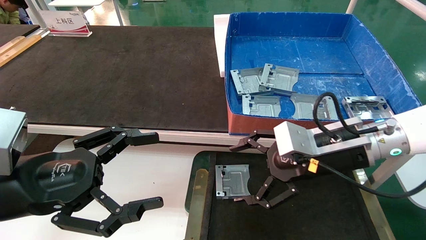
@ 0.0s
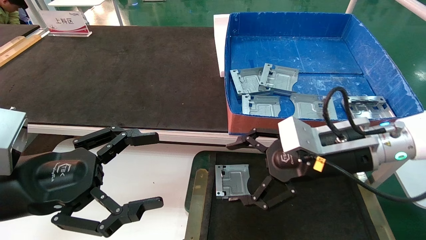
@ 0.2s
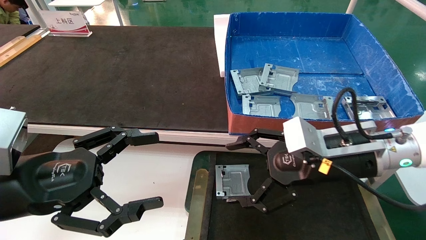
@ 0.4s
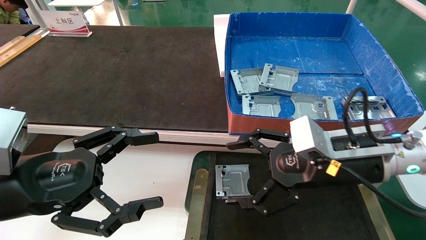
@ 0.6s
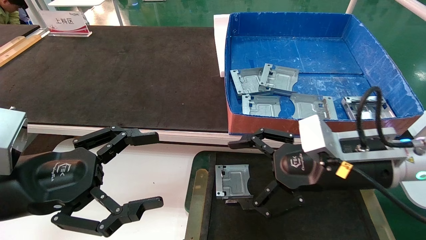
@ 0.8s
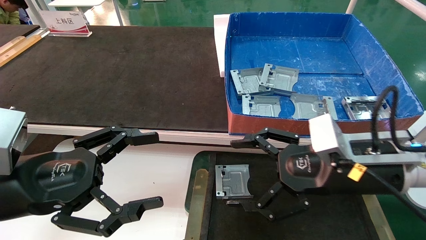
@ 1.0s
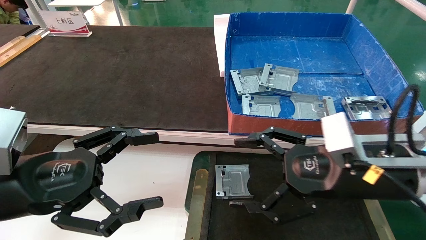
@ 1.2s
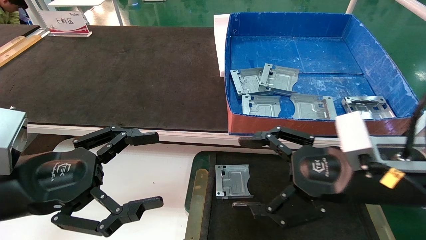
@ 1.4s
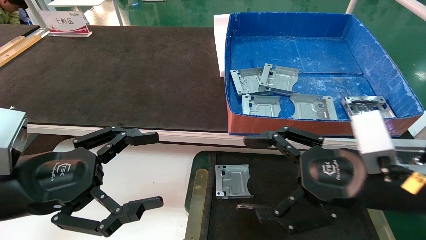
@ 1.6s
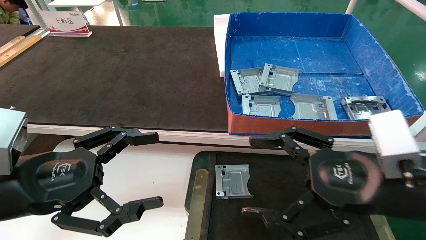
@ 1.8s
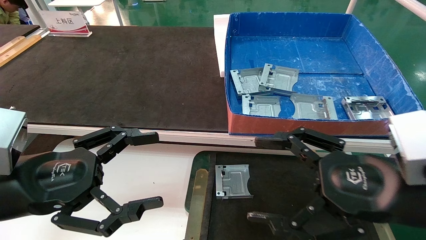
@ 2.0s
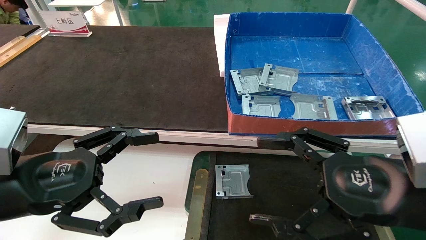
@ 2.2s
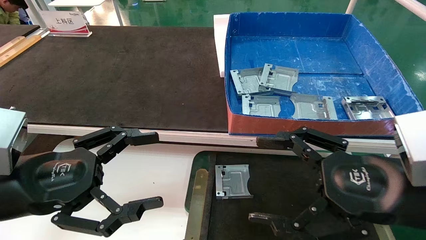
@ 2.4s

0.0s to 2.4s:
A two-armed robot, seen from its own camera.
Task of the whole recording: pick up parts and place them into a black container.
0.0s to 1.2s: The right gripper travels backward by about 5 cm.
1.2s to 2.4s: The right gripper shifts roughly 5 cm backward.
